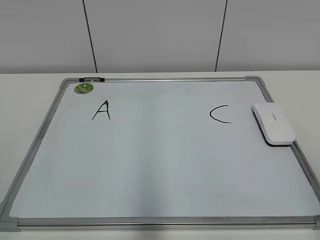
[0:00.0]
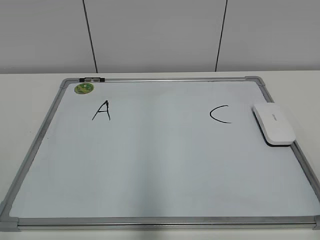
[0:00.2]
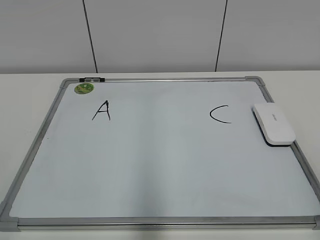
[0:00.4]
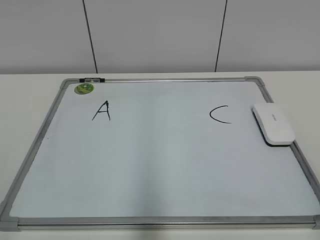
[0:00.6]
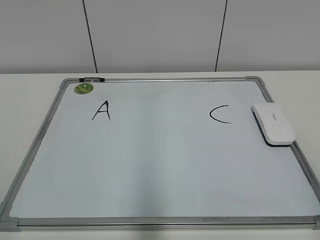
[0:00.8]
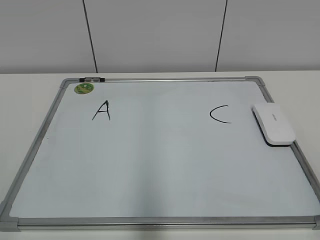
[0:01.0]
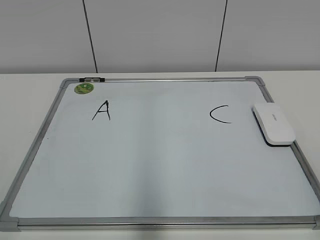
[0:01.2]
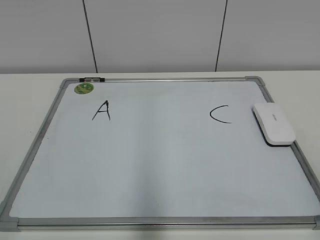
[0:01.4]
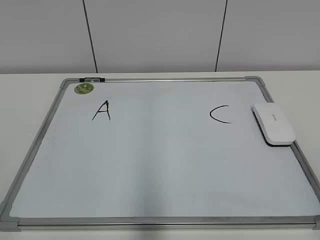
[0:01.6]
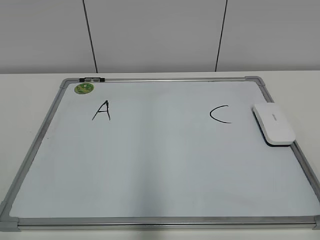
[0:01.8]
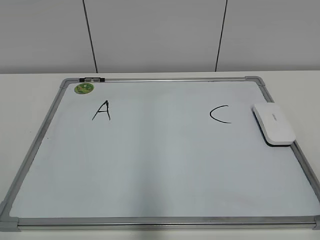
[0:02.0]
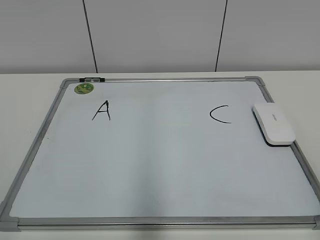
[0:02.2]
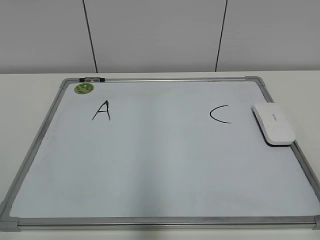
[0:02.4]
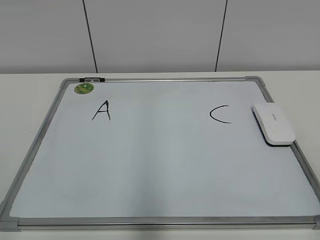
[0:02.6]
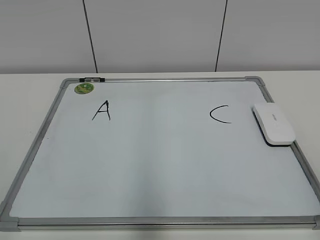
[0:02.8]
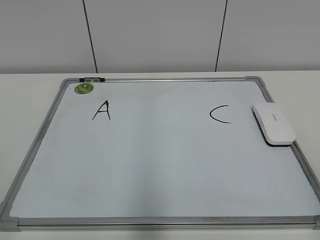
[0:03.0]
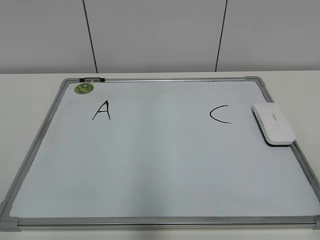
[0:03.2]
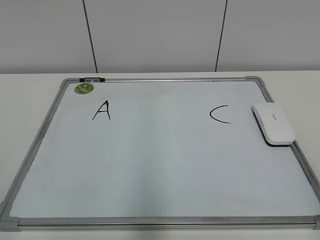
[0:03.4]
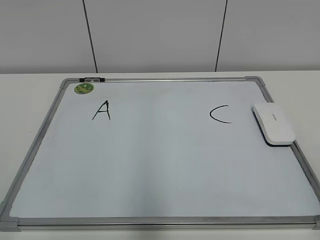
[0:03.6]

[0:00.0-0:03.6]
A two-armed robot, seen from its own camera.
Task of the whole recording: pick up the eraser on the blackboard and erase the letter "B".
0:01.8 to 0:03.6: The two grippers keep their place.

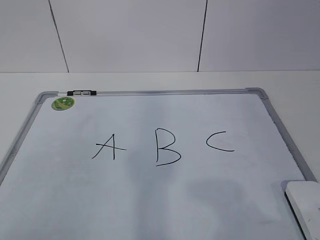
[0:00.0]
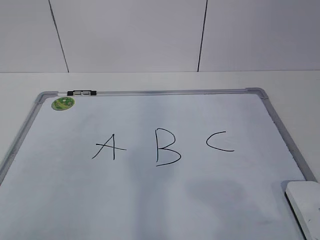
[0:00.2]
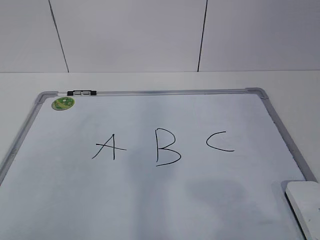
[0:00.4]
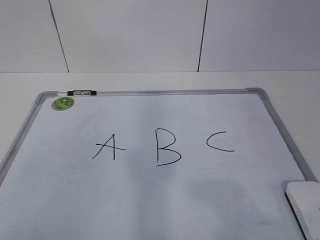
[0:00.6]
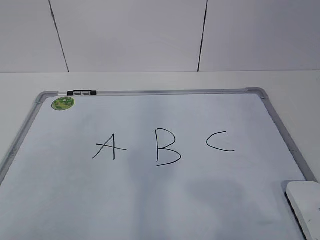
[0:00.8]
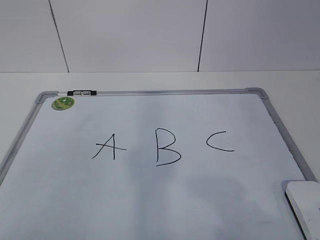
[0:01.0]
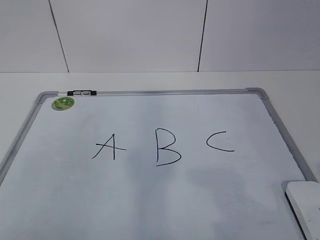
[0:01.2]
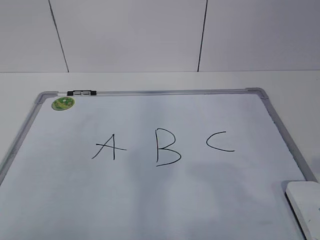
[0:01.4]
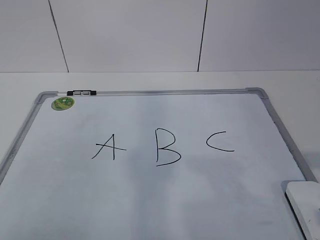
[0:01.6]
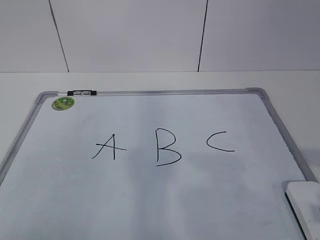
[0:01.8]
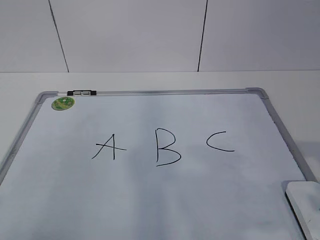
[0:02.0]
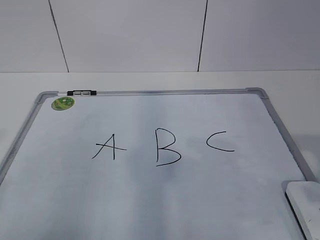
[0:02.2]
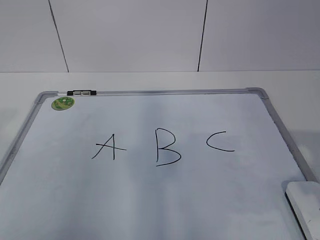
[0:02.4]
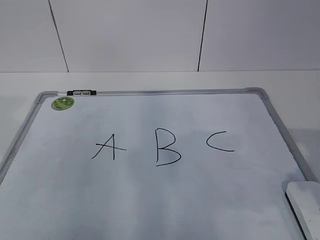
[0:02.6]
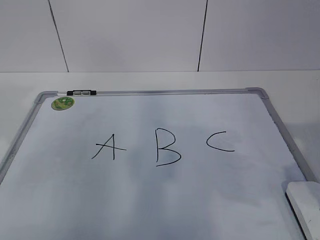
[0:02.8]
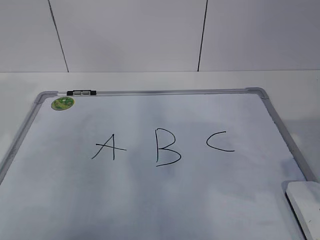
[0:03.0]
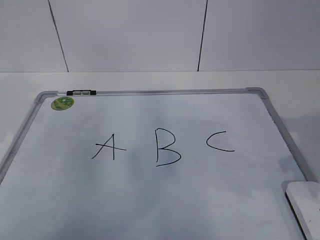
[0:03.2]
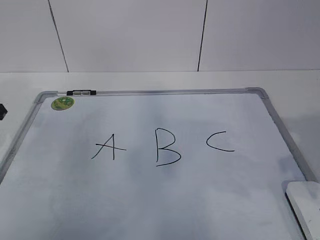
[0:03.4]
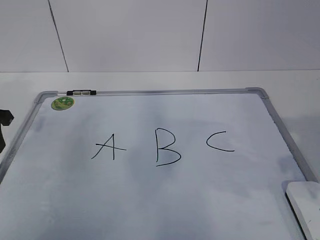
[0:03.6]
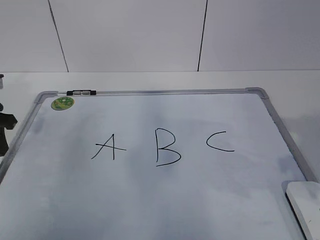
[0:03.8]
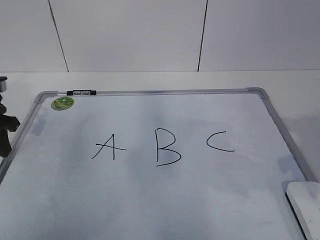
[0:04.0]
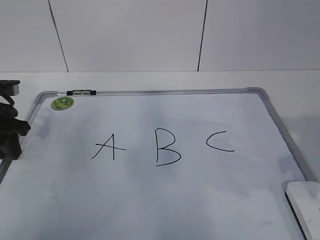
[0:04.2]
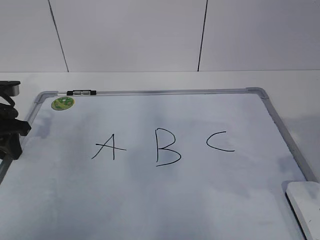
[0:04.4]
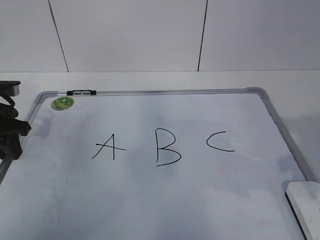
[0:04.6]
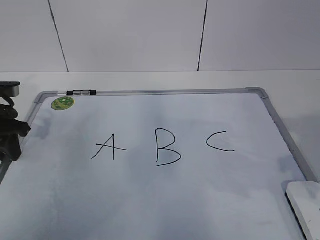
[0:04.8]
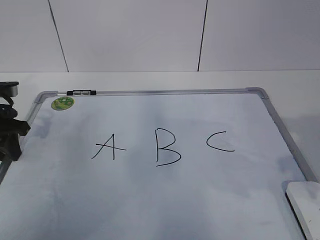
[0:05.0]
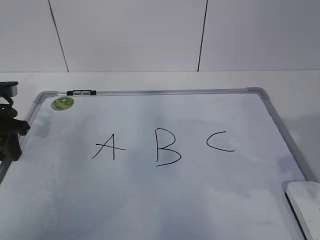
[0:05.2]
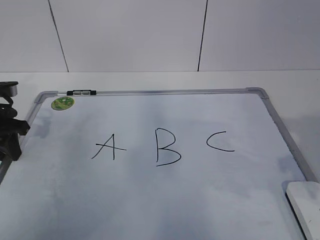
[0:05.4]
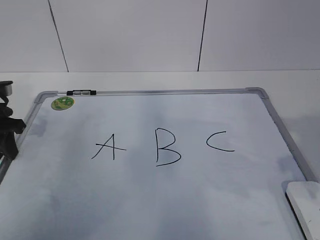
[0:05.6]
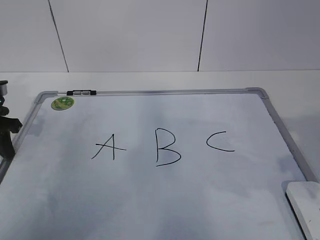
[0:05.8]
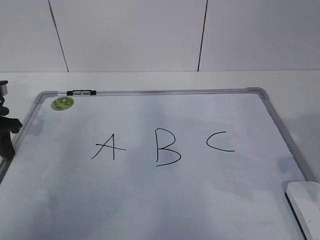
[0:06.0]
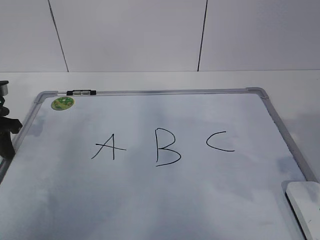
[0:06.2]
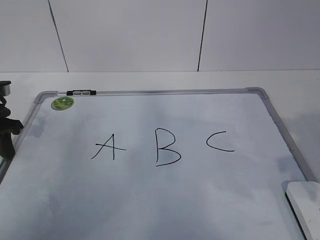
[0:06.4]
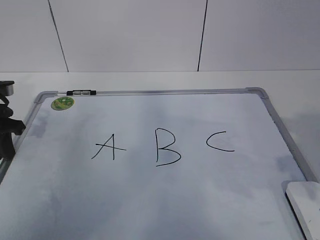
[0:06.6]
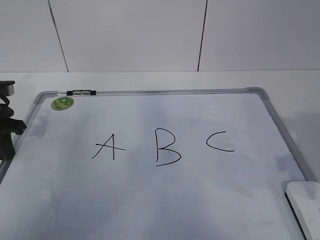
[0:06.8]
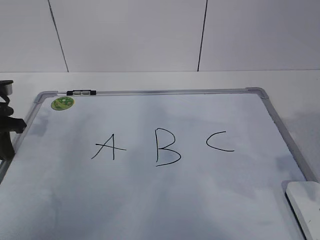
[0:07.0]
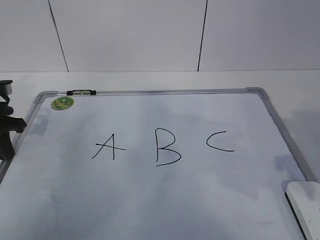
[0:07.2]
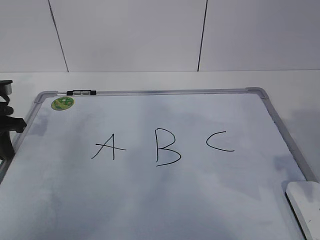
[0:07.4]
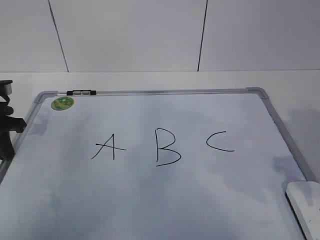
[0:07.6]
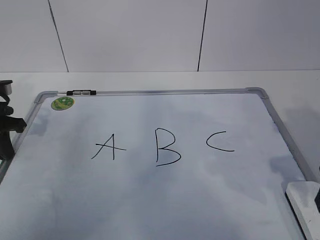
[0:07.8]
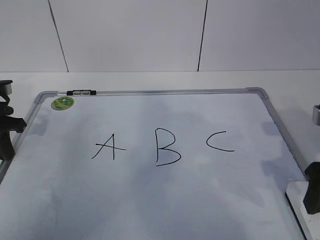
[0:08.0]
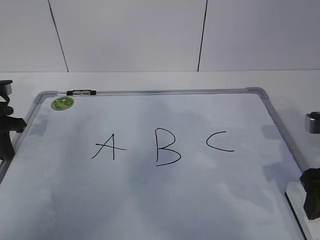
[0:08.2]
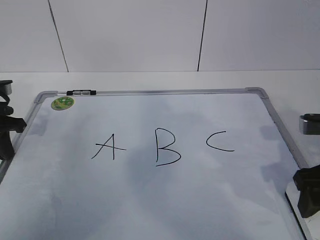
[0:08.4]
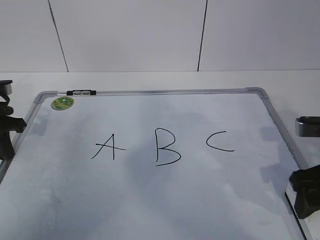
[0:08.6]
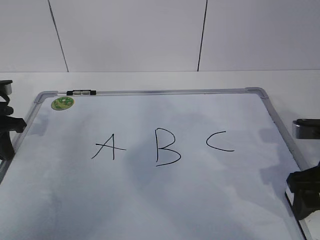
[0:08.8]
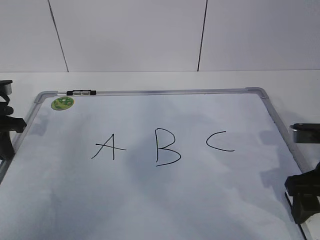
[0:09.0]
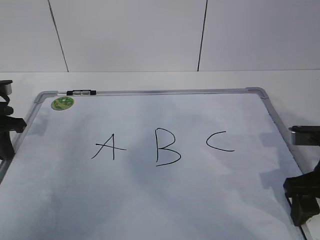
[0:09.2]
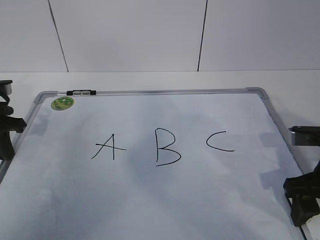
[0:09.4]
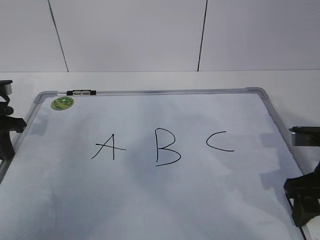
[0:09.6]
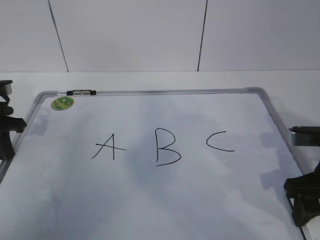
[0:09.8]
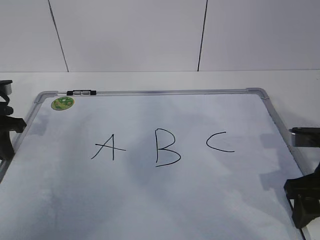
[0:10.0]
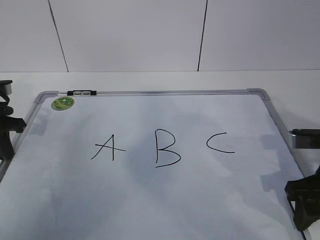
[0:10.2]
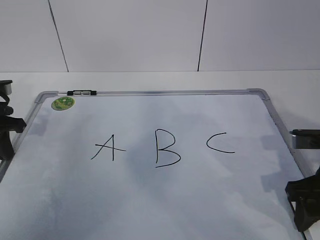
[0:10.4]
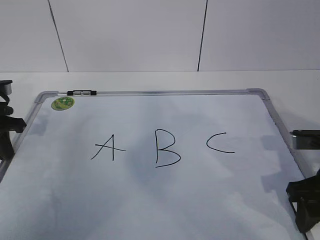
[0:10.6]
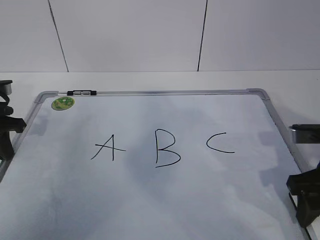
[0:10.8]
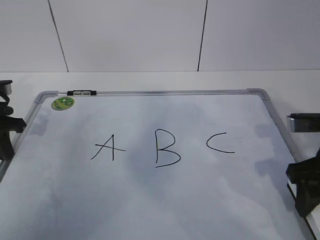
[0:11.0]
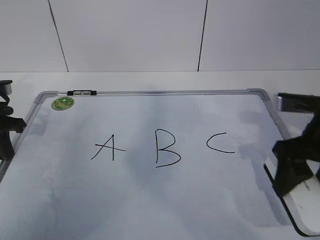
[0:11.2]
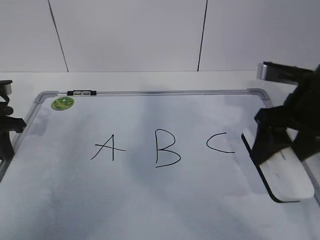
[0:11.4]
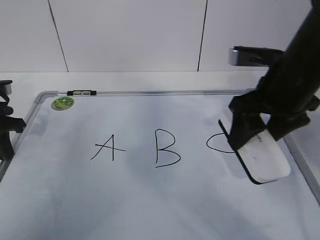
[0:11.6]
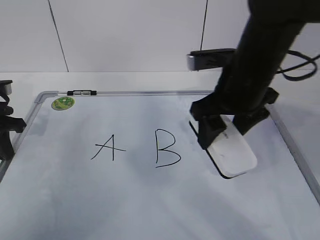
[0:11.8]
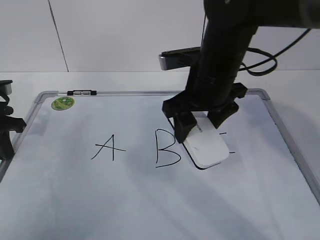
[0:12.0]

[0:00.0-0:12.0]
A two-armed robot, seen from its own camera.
Task of the whole recording: pick up the eraser on the blackboard and erase the letter "B".
Step, 0:00.0 to 0:05.6: Hold the drawing board steady with your left hand.
0:01.6 to 0:03.0: The left gripper travels forward by about 25 cm; the right gripper travels forward by about 10 cm.
0:03.0 to 0:04.4: The left gripper moves downward and forward, approximately 15 cm.
0:04.4 to 0:06.0: The grippers stay close to where they were, moving slightly.
0:07.6 to 0:09.0: The right gripper moves downward, some 5 cm.
0:09.0 to 0:10.4: The right gripper closes its fingers.
0:10.4 to 0:12.0: The right gripper heads to the left, forward and upward, covering about 20 cm.

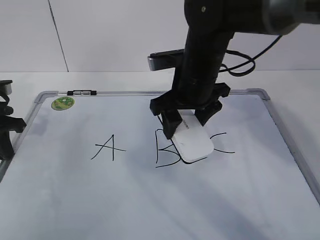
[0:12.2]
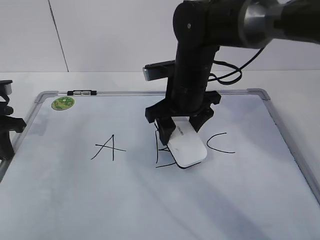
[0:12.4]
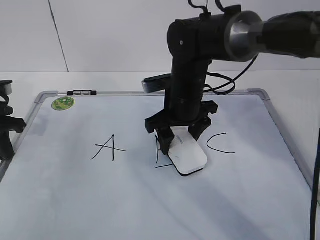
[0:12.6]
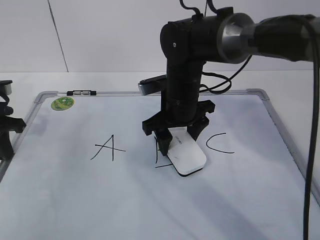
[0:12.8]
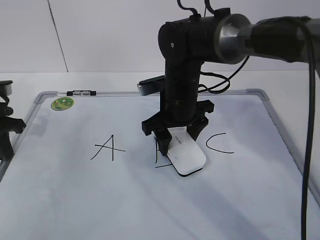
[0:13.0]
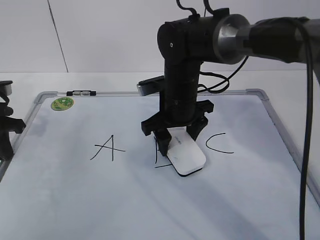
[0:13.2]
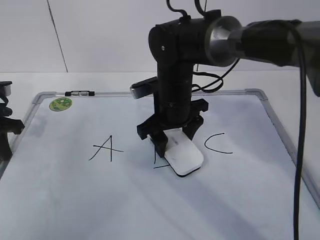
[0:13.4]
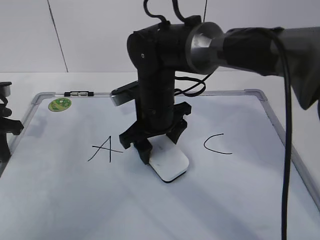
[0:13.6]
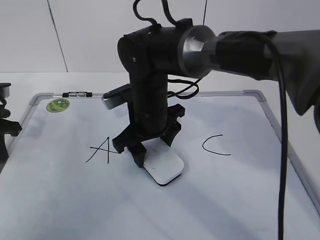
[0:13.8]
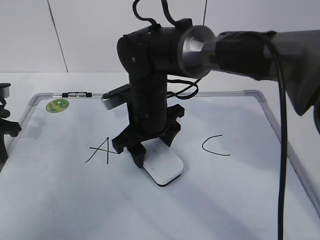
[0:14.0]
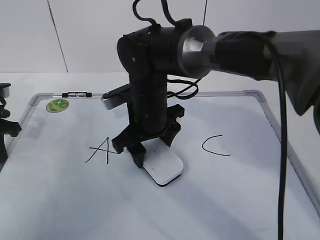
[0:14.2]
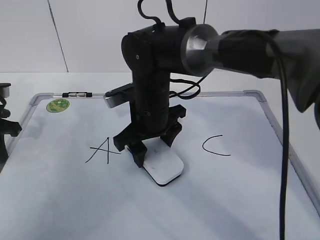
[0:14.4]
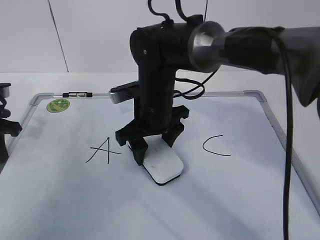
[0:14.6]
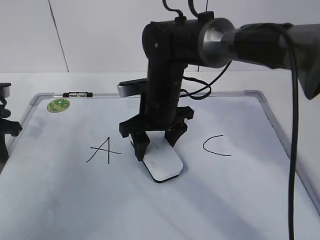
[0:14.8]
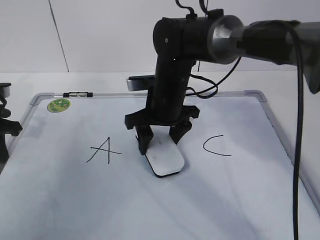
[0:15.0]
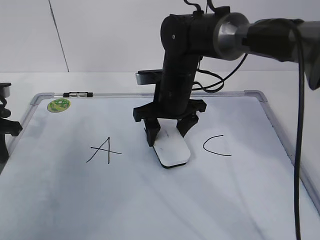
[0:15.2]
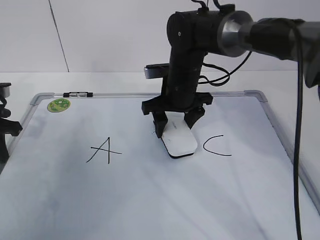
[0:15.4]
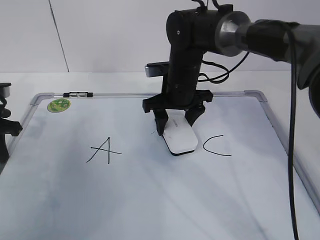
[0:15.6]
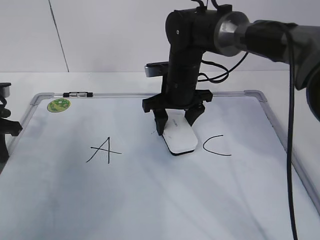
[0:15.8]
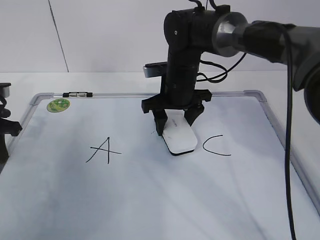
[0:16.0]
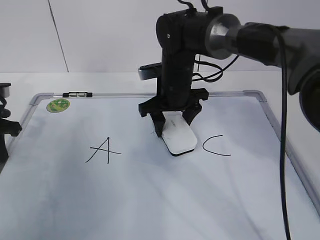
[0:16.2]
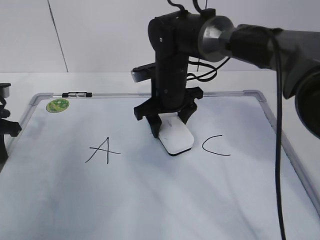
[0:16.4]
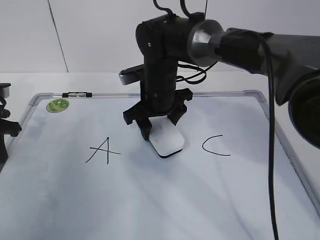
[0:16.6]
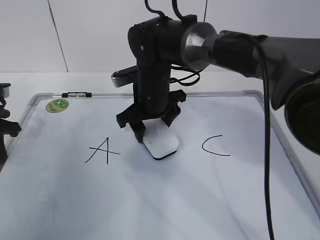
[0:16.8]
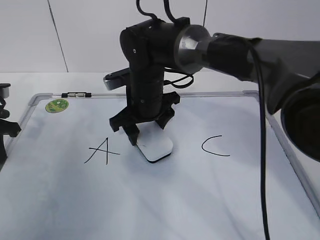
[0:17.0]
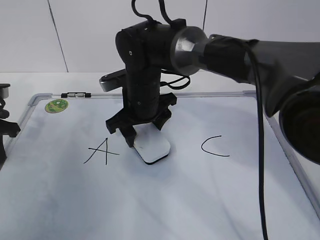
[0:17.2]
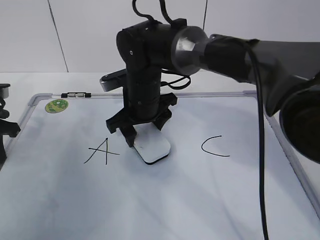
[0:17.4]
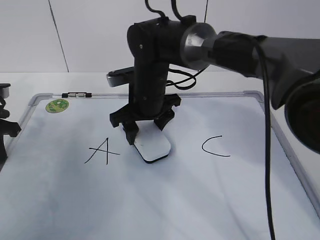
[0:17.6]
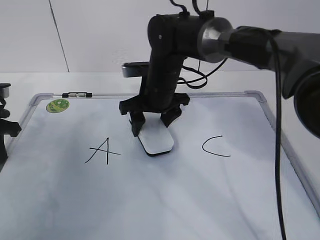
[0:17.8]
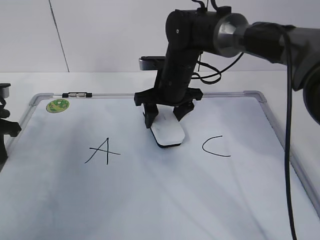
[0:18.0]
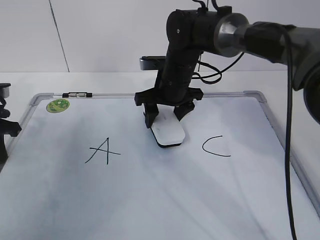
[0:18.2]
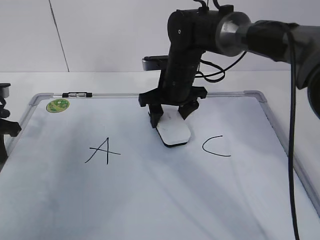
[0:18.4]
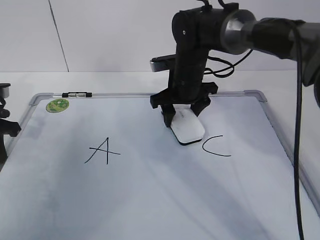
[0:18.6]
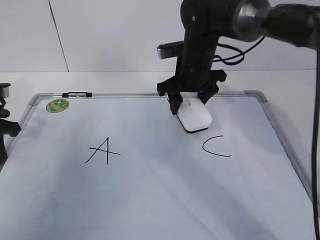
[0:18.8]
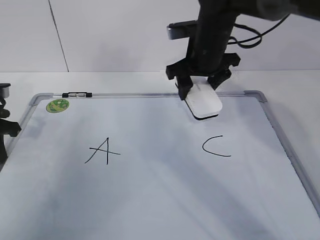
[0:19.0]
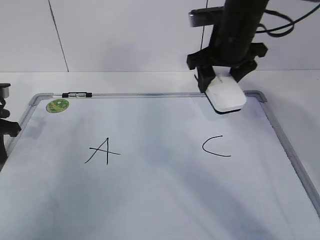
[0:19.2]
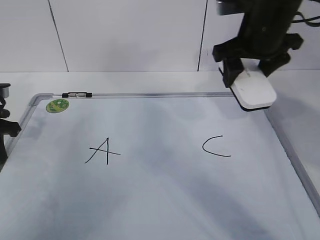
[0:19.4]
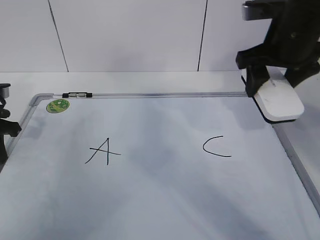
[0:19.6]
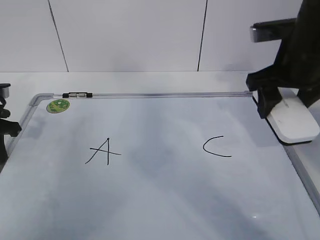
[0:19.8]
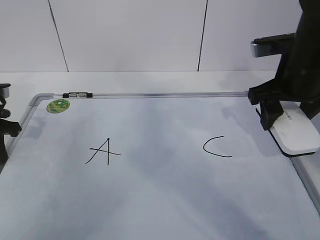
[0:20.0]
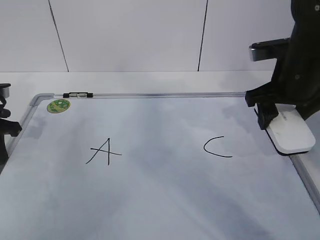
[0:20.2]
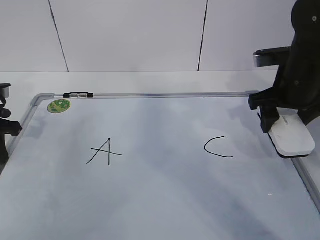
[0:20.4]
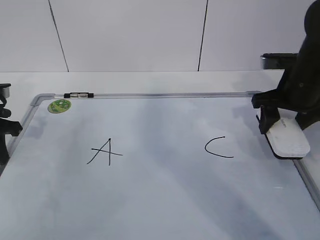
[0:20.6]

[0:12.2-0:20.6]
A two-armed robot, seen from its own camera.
Task of the whole recording: pick up the eraser on the blackboard and erase the letter "B".
Step, 0:12.2 to 0:15.4: Erase the letter B with your right hand.
Step, 0:15.6 to 0:18.2: Put down the eraser with your right hand.
0:12.2 to 0:13.6: The right gripper is displaced downward and to the left by some 10 cm.
0:13.6 to 0:15.0: The grippers move only a little.
0:15.0 to 0:17.8: The grippers stay close to where they were, moving slightly.
0:17.8 to 0:19.2: The right gripper shifts approximately 15 cm upward and to the right.
0:19.2 to 0:20.6: The right gripper travels to the right and downward by roughly 15 cm.
